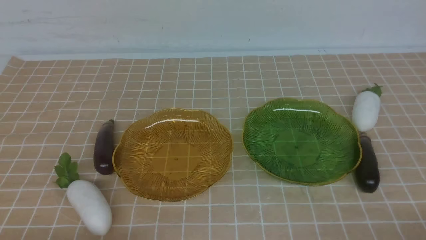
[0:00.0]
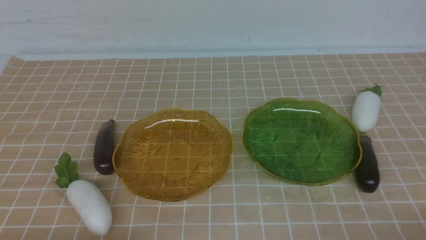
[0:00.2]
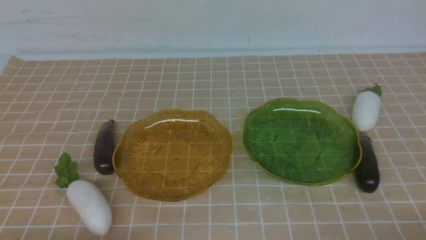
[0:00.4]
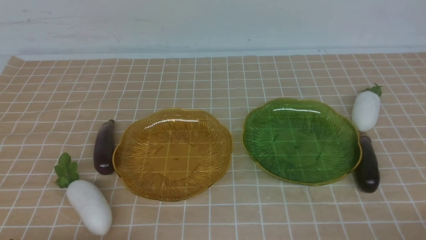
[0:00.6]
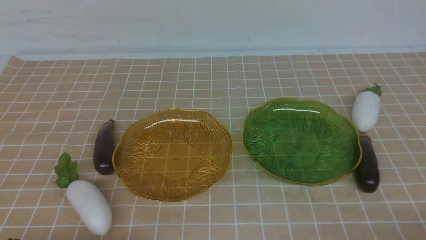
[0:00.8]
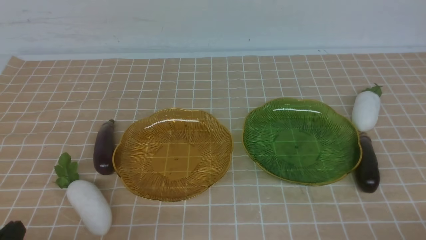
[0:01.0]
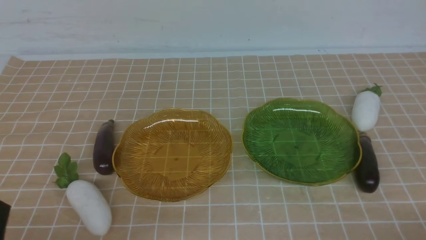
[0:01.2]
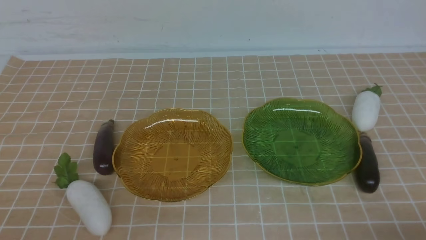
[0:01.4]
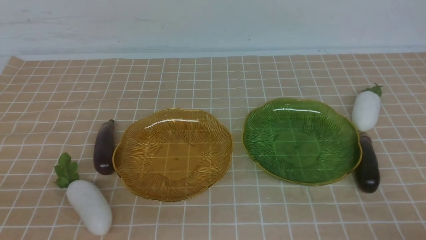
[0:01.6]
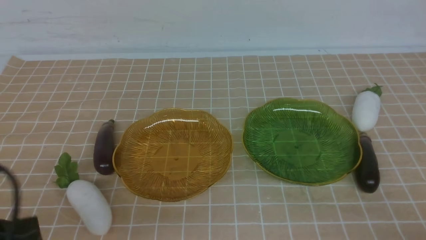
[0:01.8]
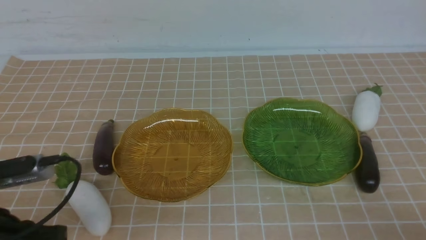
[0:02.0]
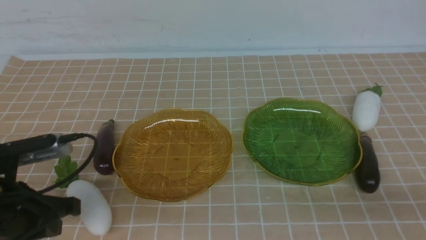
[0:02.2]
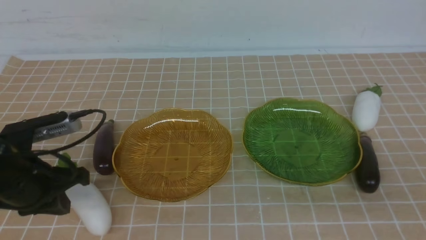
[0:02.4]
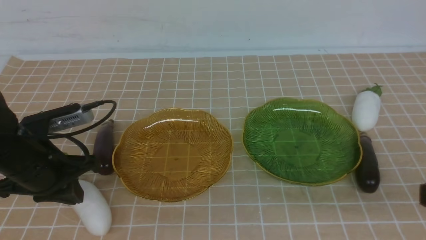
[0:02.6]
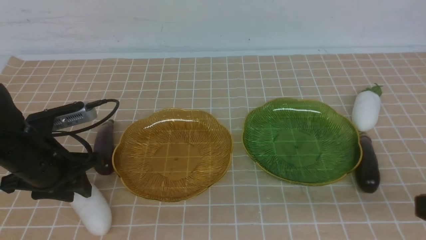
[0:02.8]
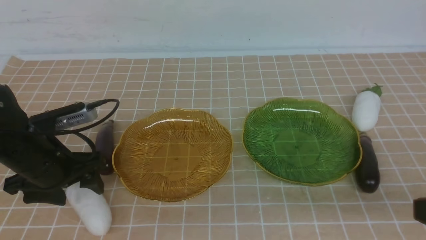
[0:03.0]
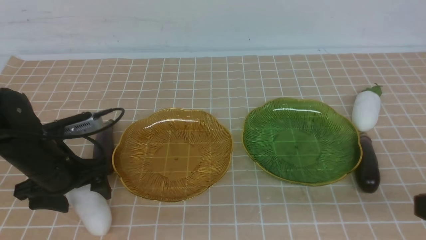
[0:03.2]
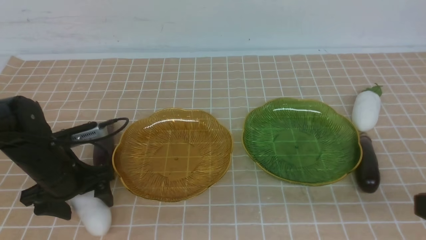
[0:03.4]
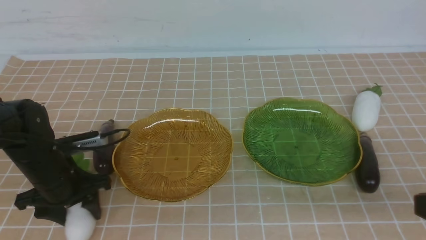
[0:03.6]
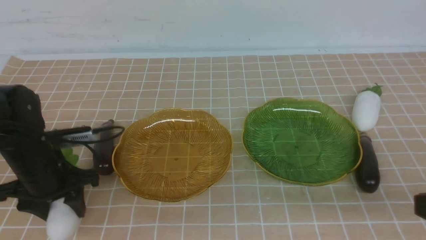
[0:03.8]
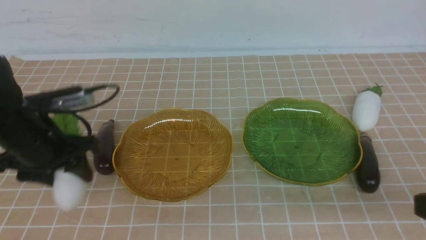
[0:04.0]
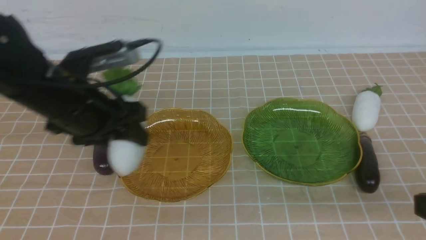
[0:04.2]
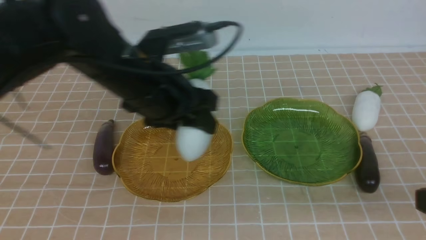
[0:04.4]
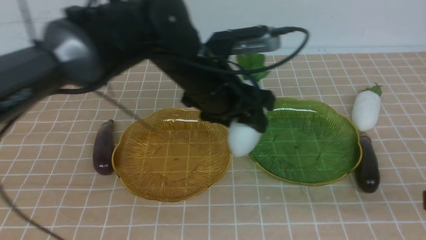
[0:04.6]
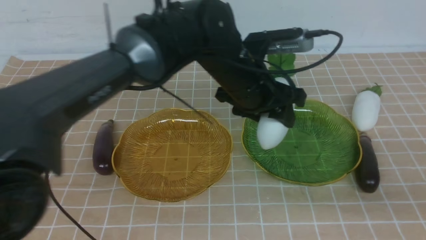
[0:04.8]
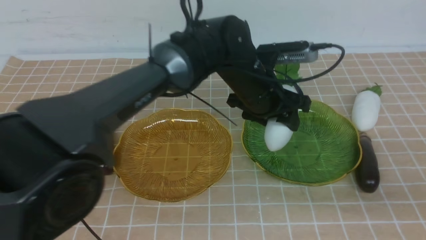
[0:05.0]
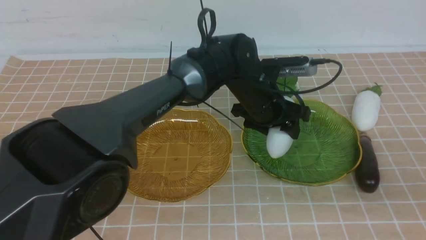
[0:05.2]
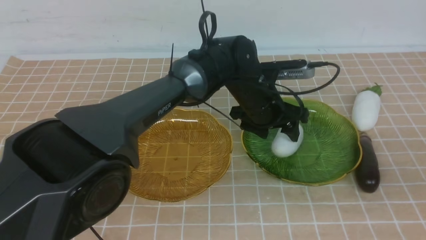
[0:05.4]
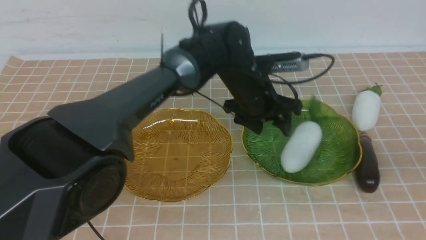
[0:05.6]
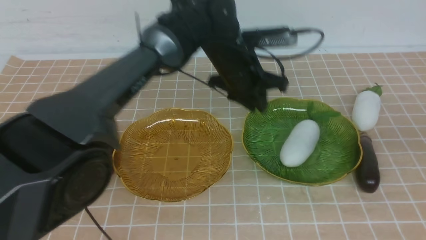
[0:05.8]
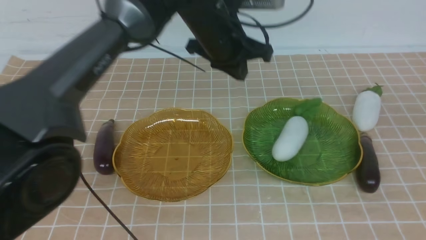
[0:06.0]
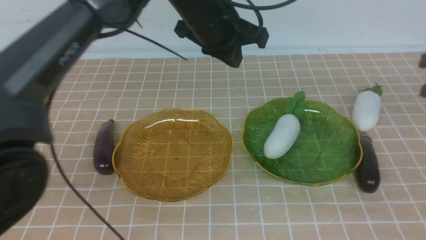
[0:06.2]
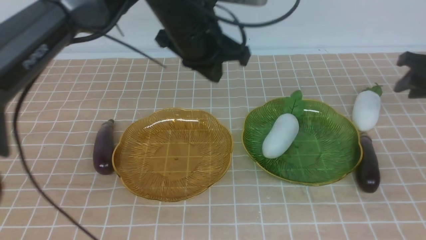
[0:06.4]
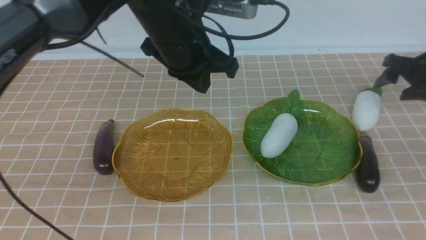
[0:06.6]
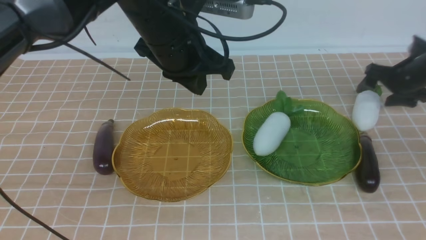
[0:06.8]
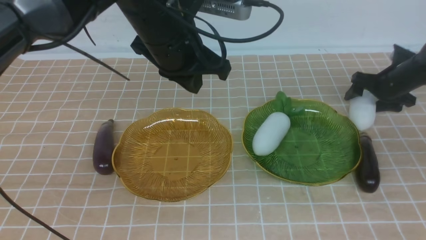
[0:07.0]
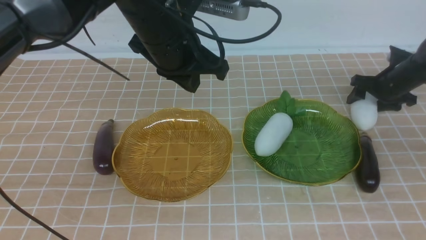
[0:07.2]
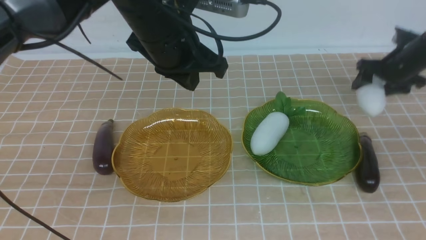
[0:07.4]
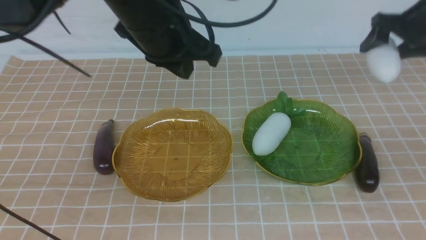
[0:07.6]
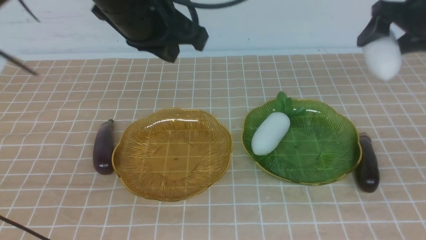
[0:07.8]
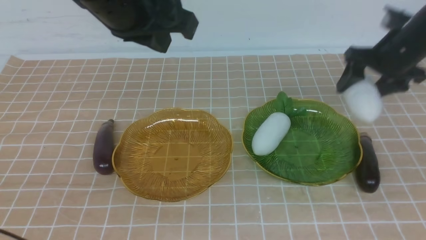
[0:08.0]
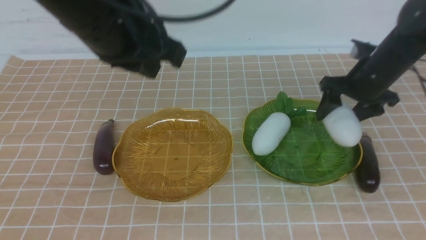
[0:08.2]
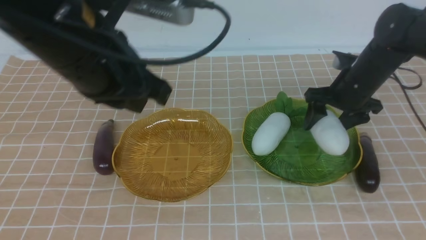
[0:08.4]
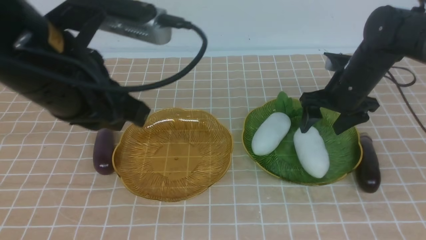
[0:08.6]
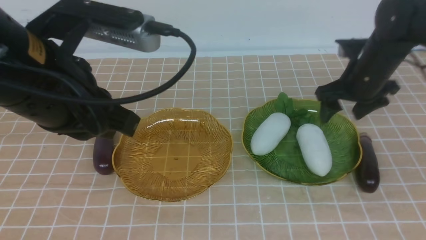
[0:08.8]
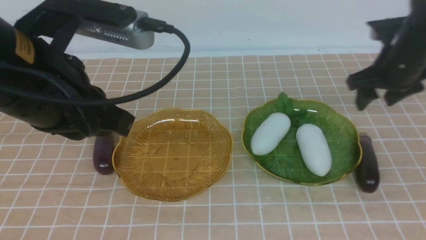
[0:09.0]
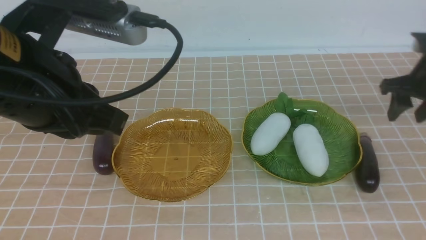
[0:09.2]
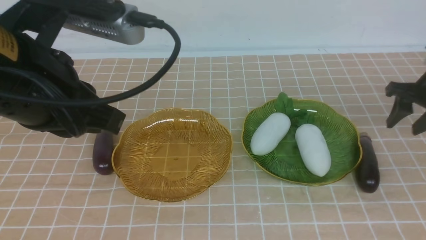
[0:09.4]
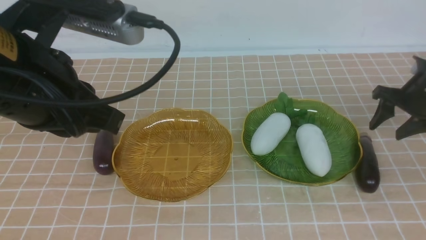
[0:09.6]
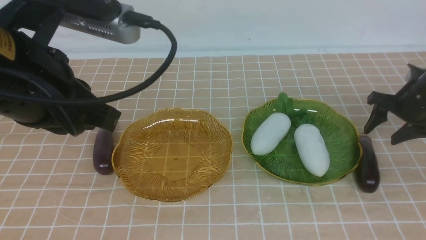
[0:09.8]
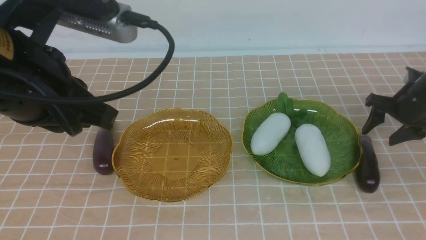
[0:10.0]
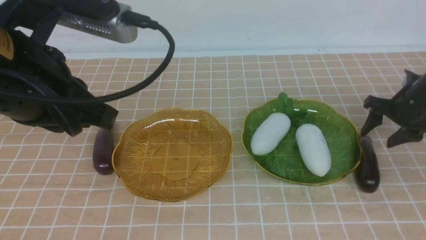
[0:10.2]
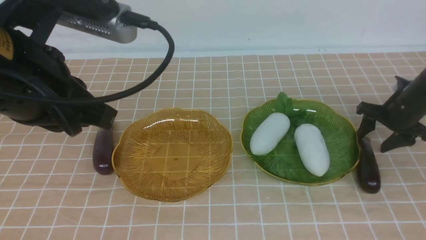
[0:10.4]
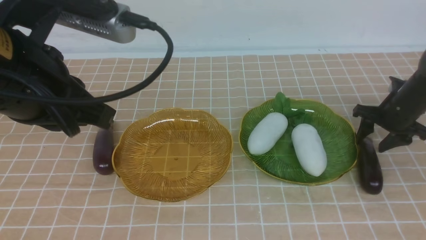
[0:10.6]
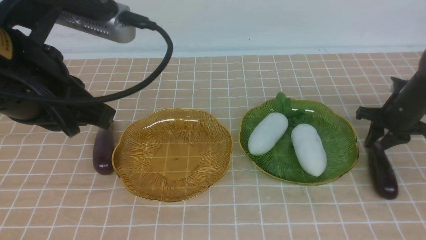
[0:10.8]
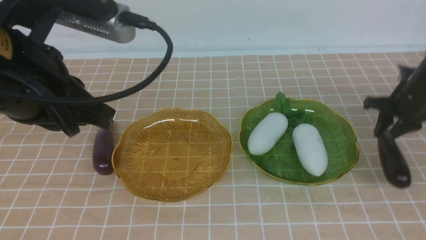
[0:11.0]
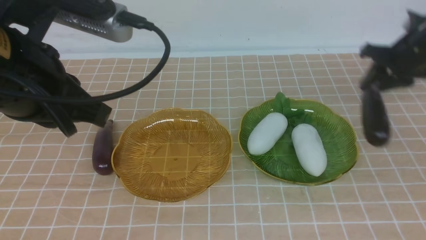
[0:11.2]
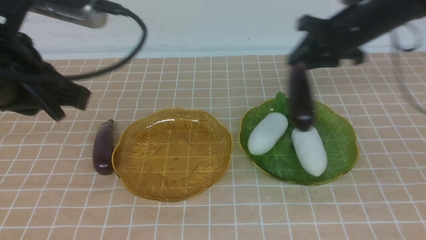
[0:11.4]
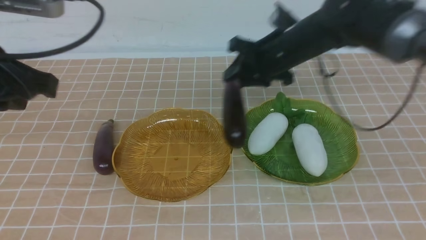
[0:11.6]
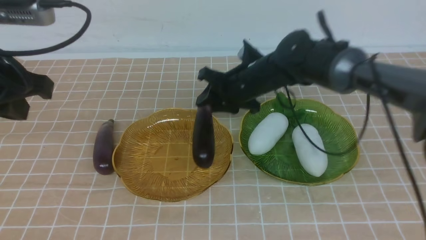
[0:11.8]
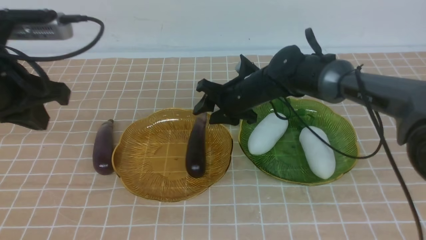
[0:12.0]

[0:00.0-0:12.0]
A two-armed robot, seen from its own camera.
Step, 0:00.0 to 0:05.4: use the left arm to grab a radish and put it into the right plate.
Step, 0:05.8 to 0:08.6: use the right arm to grab a radish and put it into the right plate.
0:01.6 to 0:03.0: The left gripper shifts some 20 cm forward, and opens up; the right gripper goes roughly 15 cm upward.
0:03.0 to 0:04.4: The left gripper heads to the right and upward, covering some 15 cm.
0:04.4 to 0:06.0: The left gripper is displaced forward and to the right by about 15 cm, and closes up, while the right gripper heads forward, covering about 20 cm.
0:06.0 to 0:07.6: The right gripper travels forward by some 15 cm, and opens up. The left gripper travels backward, upward and to the left by some 20 cm.
0:07.6 to 0:09.0: The right gripper is displaced downward and to the right by about 10 cm, while the left gripper is displaced backward and to the left by approximately 10 cm.
0:09.0 to 0:10.4: The right gripper closes its fingers.
0:10.4 to 0:12.0: The right gripper heads to the left, covering about 20 cm. Meanwhile the left gripper shifts about 15 cm forward, downward and to the left.

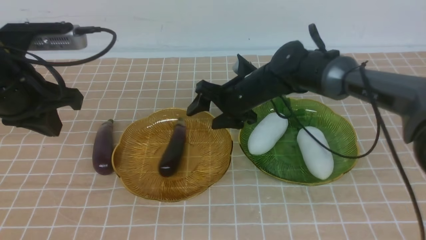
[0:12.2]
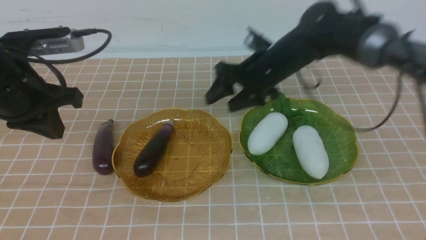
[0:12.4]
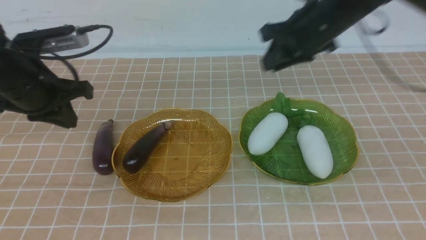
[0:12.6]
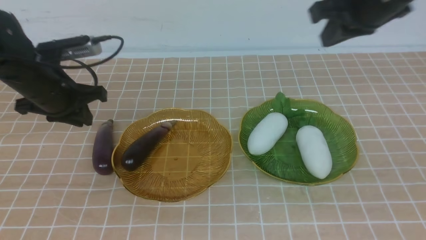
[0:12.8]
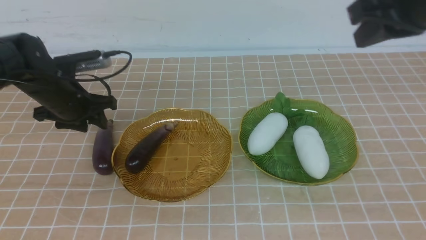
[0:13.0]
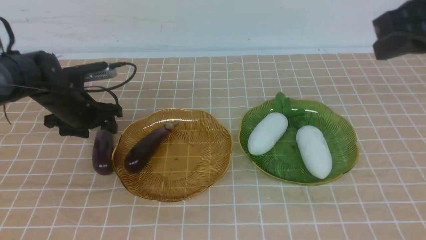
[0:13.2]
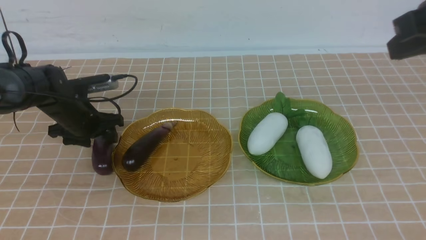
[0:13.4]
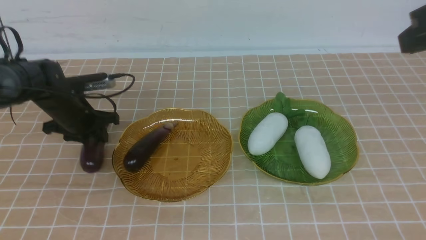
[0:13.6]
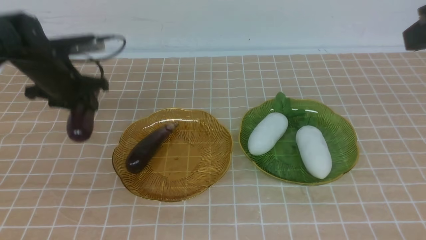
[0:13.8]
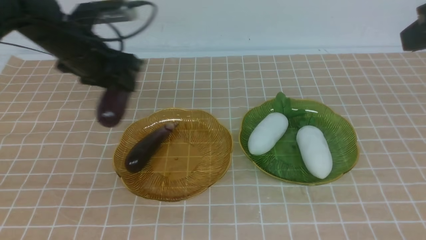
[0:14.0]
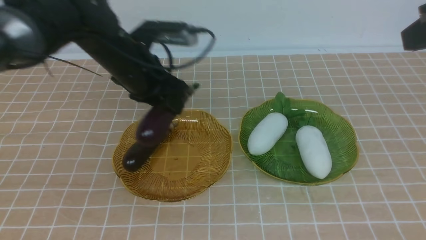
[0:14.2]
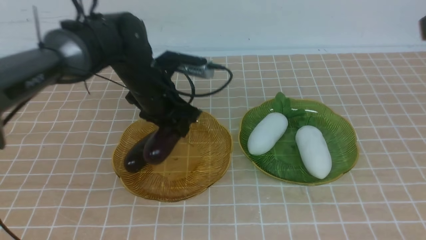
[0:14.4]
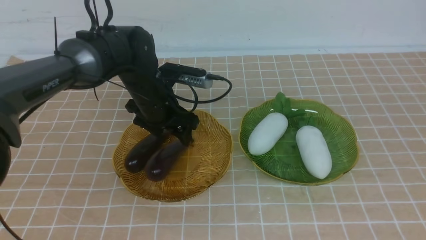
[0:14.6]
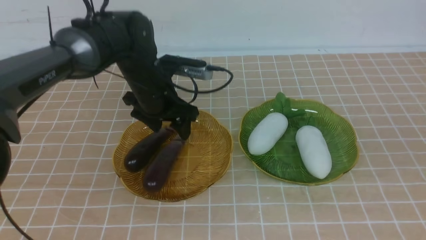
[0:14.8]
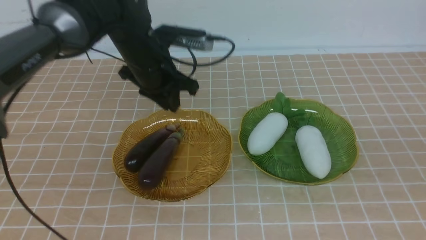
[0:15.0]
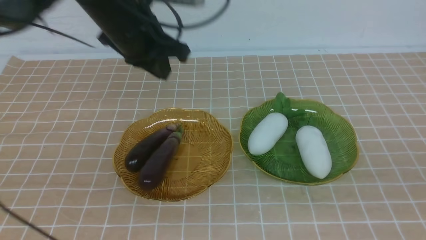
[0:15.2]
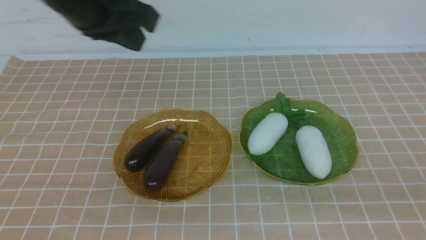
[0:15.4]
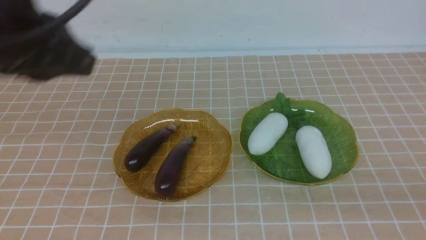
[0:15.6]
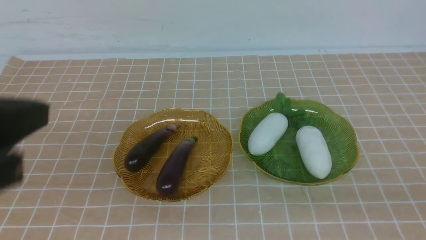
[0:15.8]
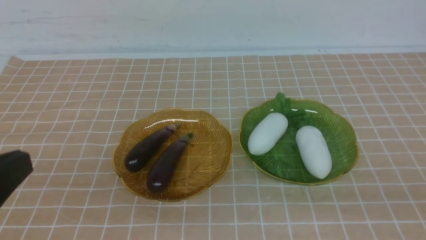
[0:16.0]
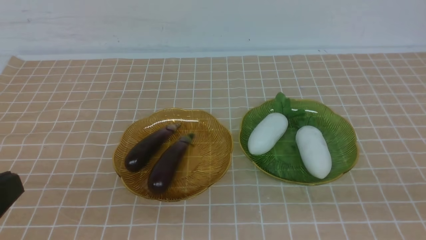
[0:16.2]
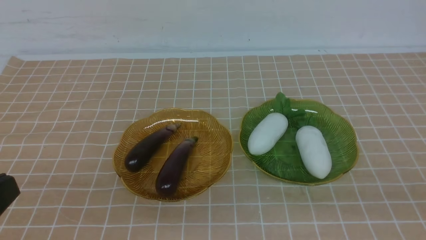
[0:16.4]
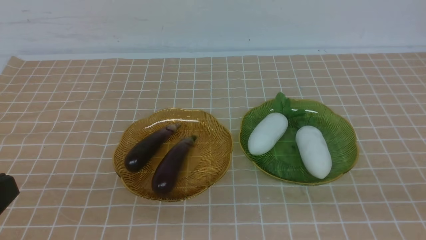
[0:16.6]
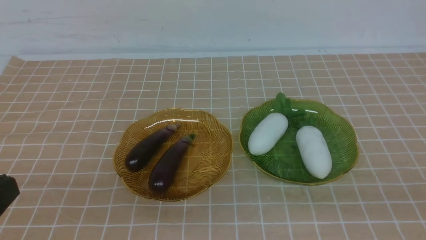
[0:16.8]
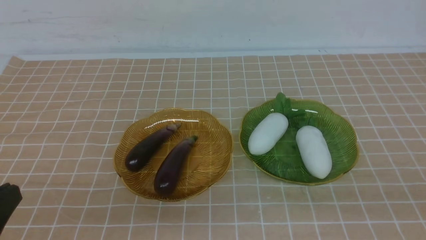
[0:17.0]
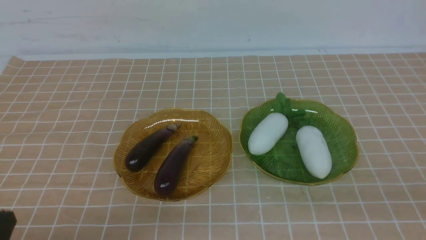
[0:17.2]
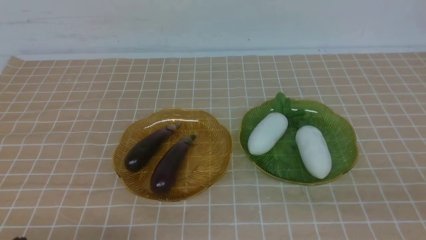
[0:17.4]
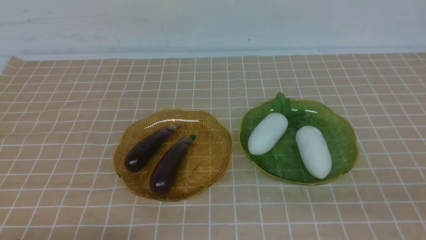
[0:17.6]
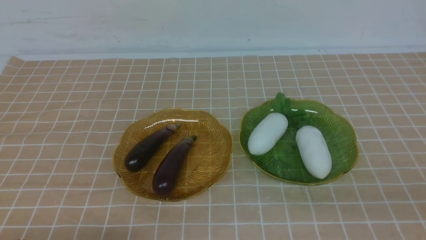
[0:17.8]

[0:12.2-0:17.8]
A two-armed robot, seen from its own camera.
Step, 0:12.2 to 0:14.6: use the left arm to grab an eggplant and put it into the left plate.
0:12.2 to 0:13.6: The right gripper heads backward, upward and to the right, covering about 20 cm. The left gripper shifts approximately 10 cm forward and downward, and opens up.
0:13.6 to 0:15.0: The left gripper travels to the right, upward and backward by approximately 20 cm. Meanwhile the right gripper heads backward, covering about 20 cm.
0:15.0 to 0:16.4: The right gripper is displaced downward by about 5 cm, while the left gripper goes roughly 30 cm backward.
0:16.4 to 0:17.8: The left gripper travels downward by roughly 15 cm.
